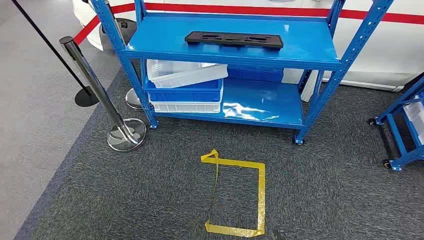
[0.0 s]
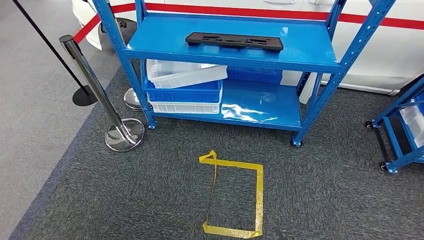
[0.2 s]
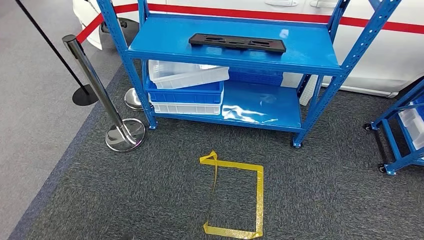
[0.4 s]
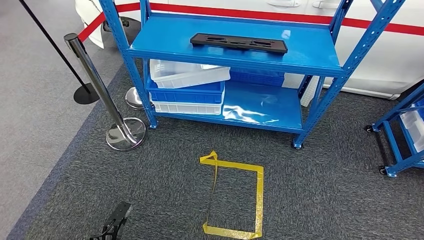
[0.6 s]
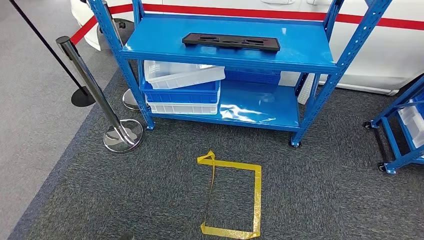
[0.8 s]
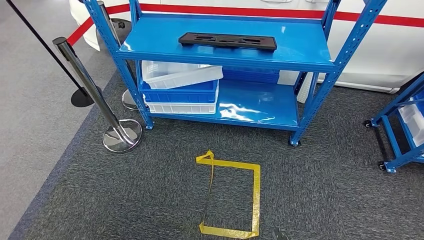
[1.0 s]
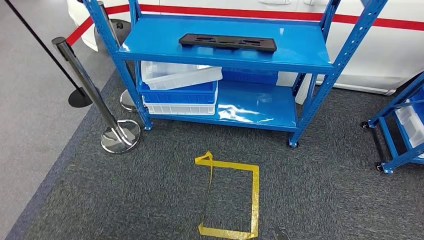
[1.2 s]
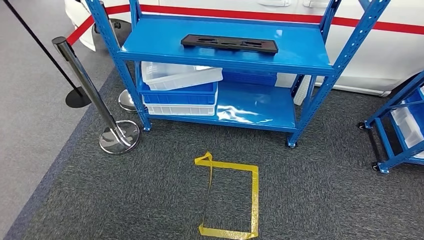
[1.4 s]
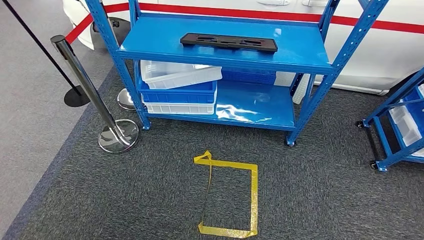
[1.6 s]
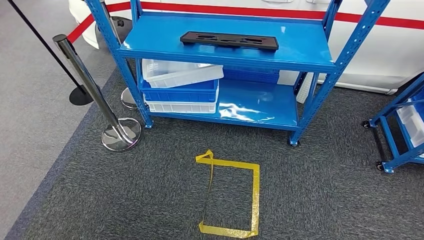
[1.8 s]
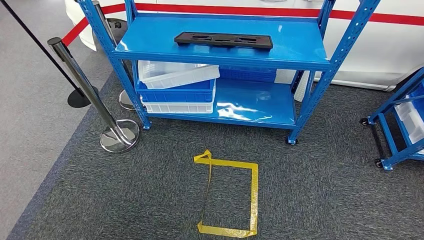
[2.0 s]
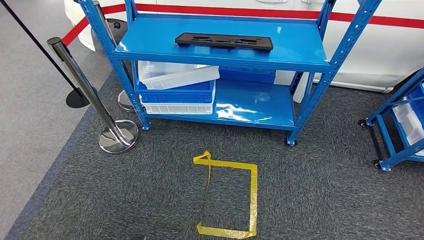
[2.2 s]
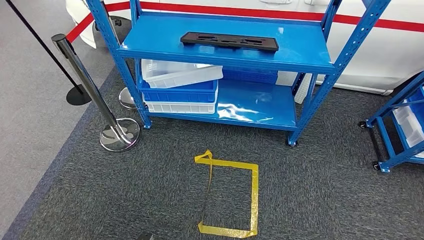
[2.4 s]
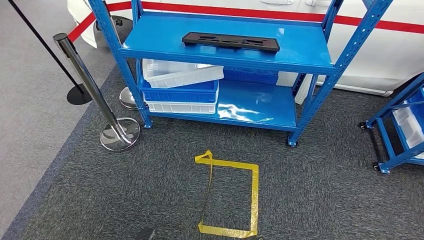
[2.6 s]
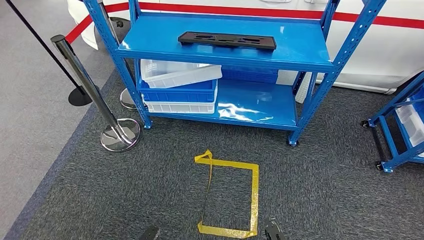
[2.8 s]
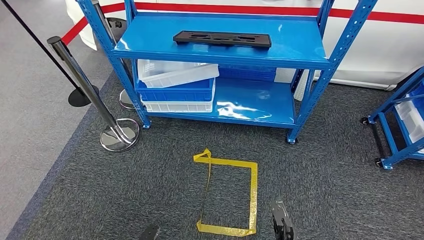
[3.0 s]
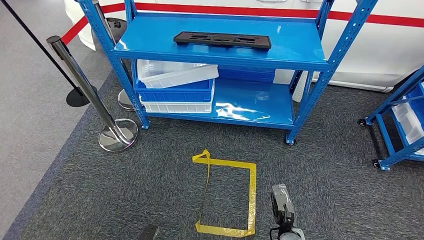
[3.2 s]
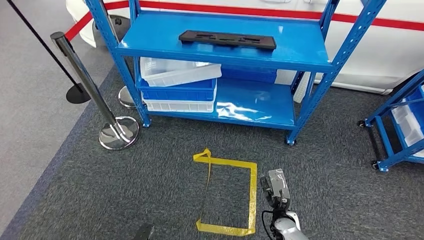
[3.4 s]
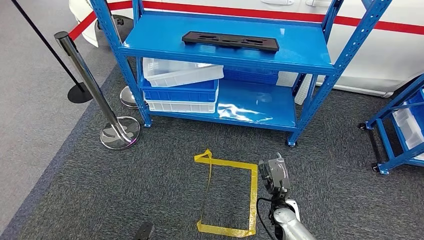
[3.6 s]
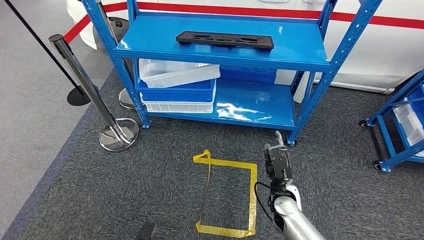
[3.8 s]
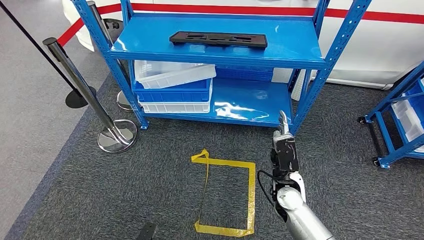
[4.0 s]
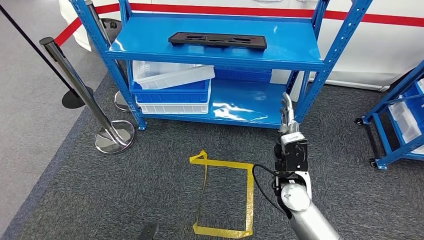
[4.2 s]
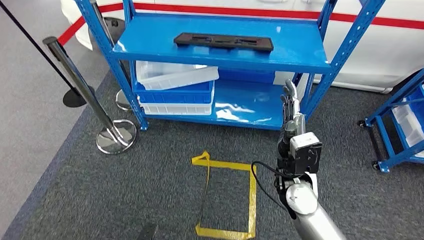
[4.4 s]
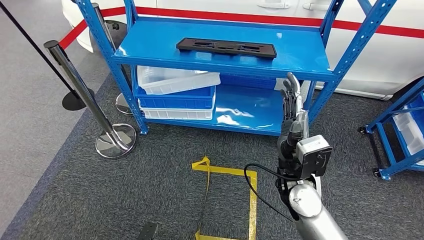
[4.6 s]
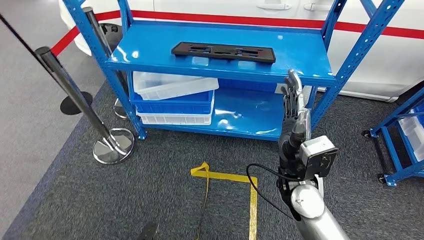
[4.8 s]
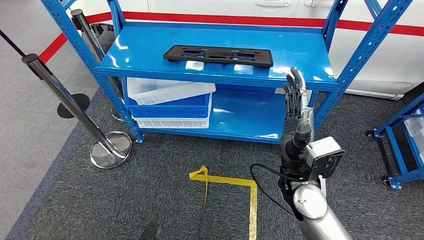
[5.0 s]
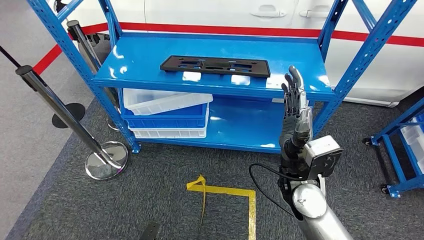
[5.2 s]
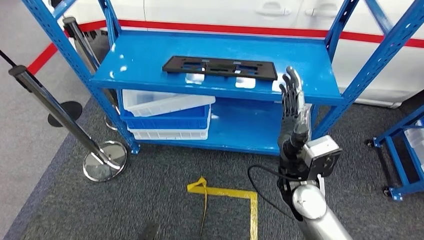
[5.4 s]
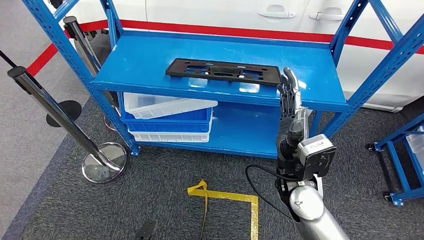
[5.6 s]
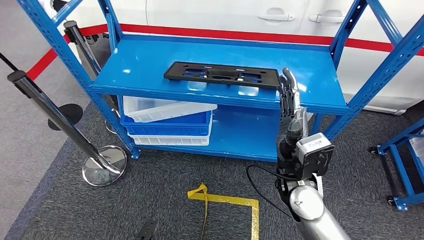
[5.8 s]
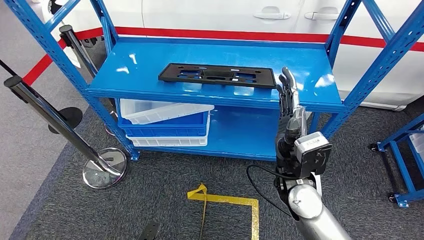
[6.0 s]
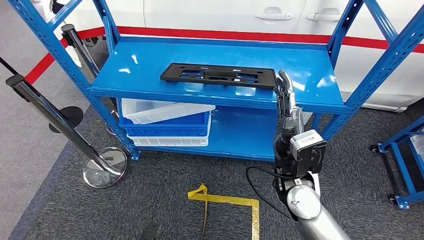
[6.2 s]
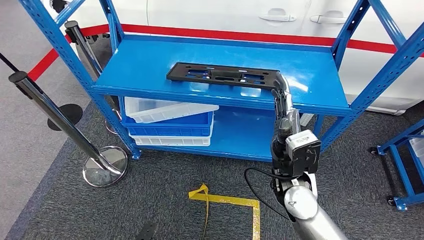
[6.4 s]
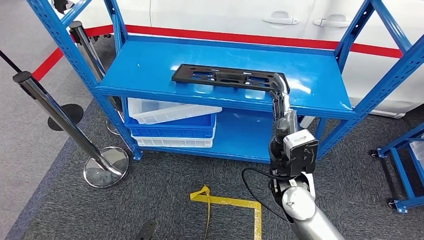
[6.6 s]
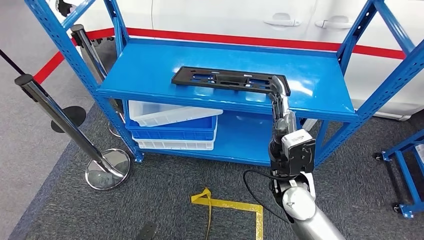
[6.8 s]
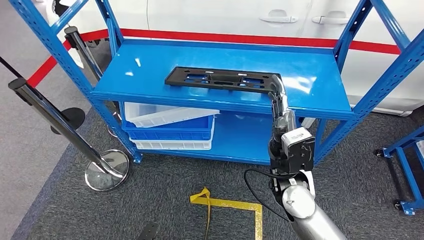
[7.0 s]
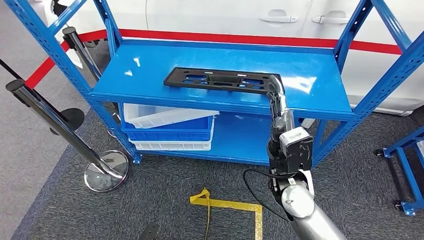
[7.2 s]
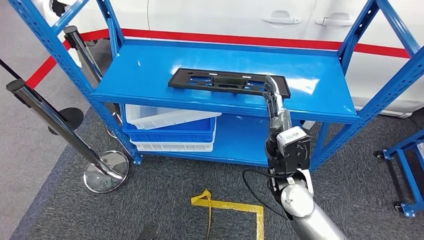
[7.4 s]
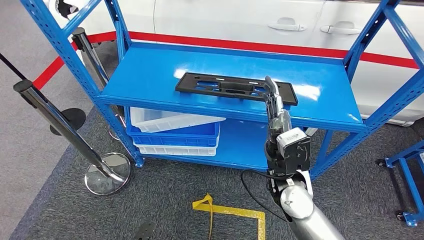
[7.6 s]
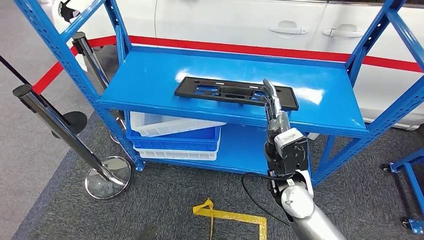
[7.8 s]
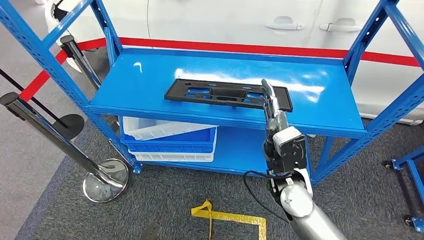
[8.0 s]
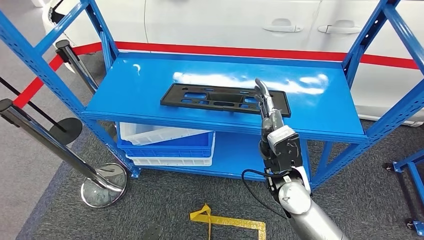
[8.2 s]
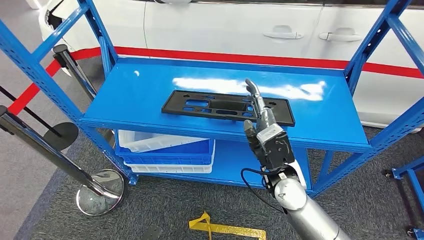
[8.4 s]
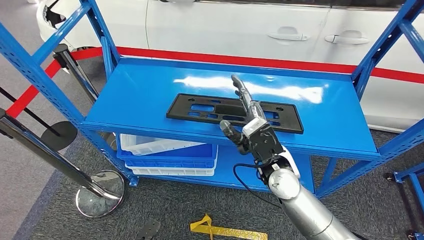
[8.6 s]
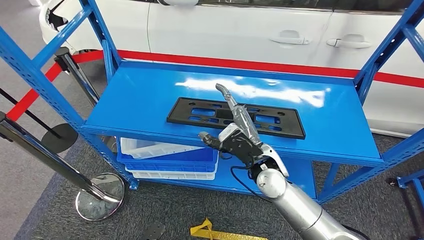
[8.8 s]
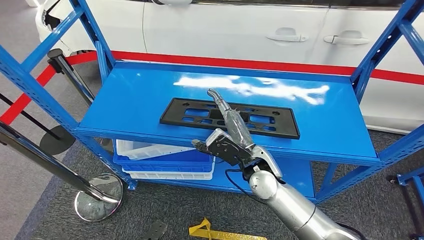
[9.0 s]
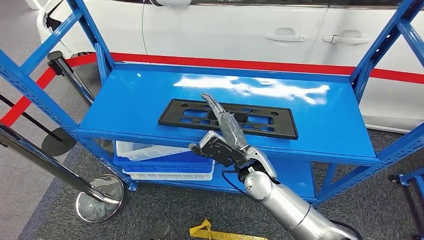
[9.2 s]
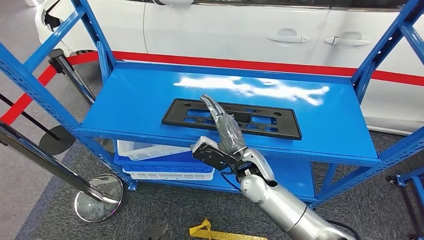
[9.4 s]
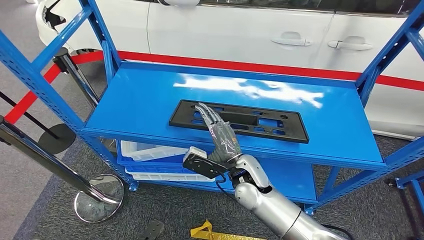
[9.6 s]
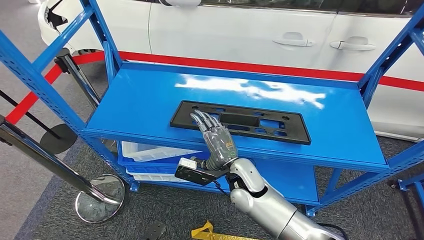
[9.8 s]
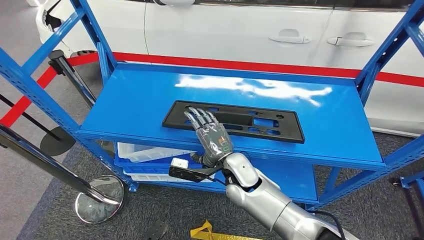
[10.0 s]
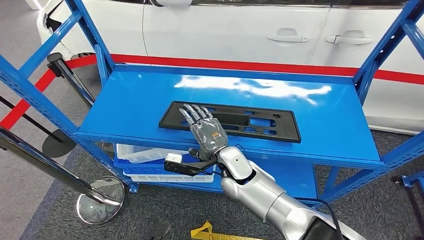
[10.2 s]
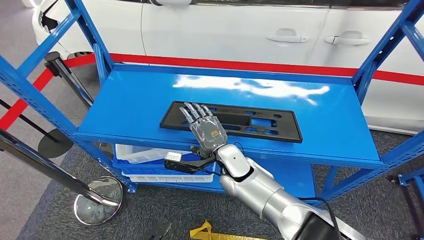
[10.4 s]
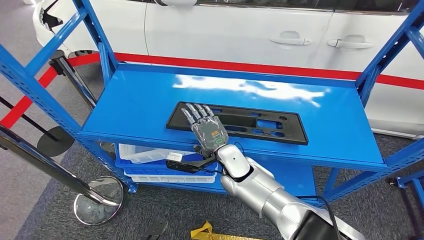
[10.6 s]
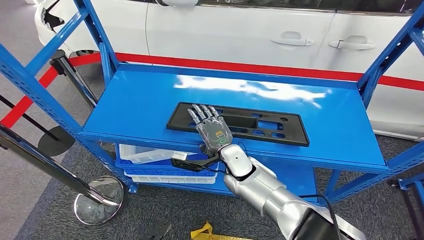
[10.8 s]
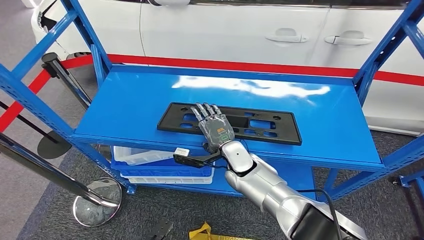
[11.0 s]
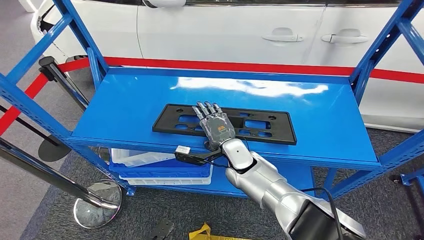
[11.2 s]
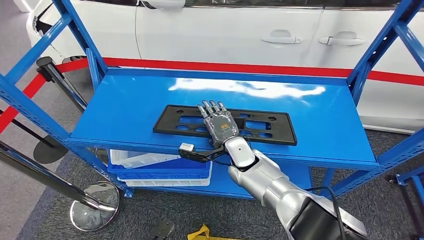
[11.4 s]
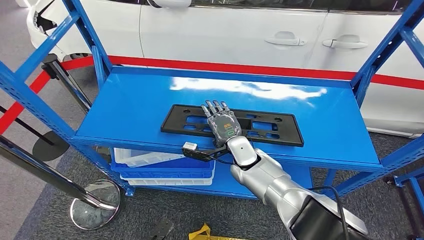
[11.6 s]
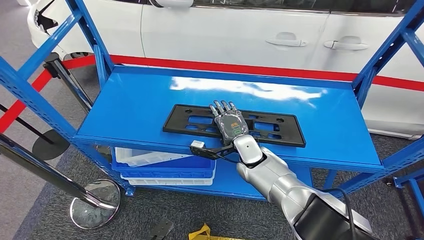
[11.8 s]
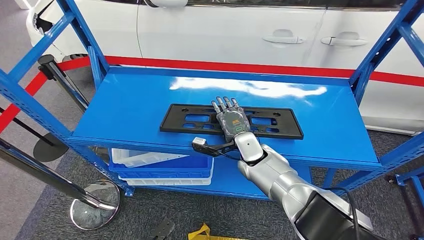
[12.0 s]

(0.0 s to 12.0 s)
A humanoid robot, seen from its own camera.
1.6 s - 3.0 s: The left hand goes some 5 cm forward; the right hand shifts roughly 15 cm forward.

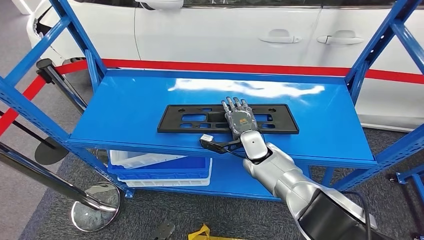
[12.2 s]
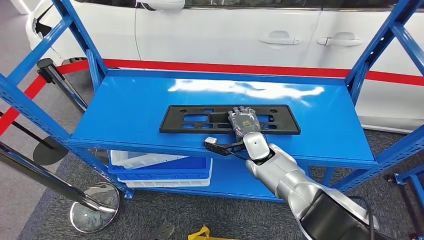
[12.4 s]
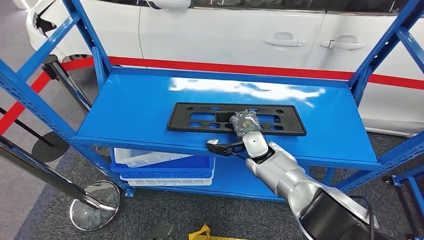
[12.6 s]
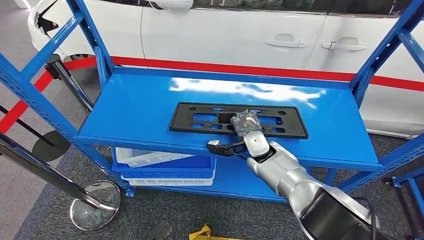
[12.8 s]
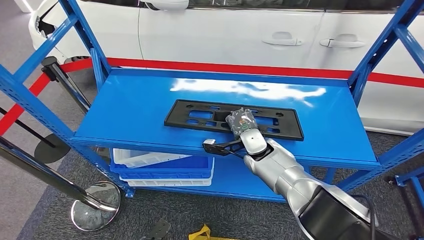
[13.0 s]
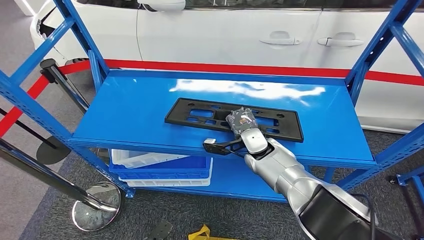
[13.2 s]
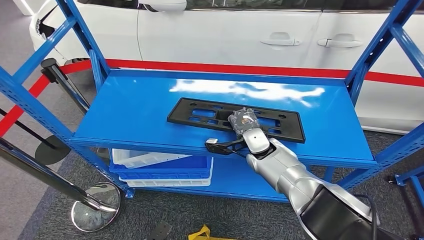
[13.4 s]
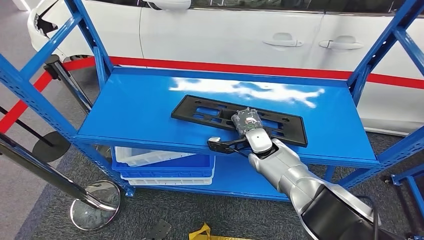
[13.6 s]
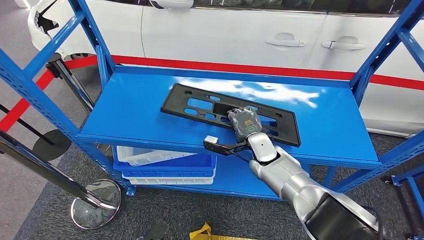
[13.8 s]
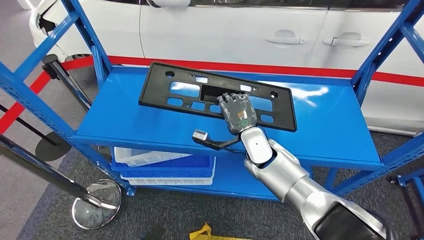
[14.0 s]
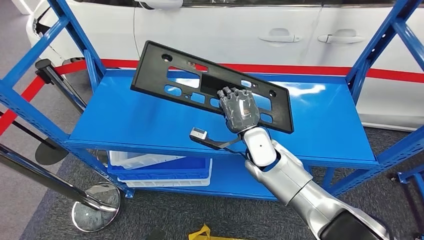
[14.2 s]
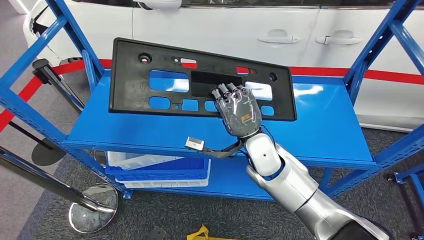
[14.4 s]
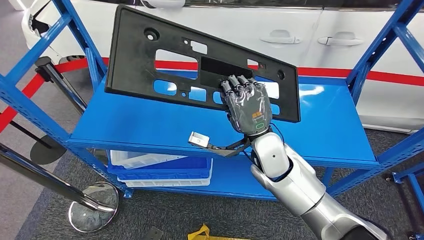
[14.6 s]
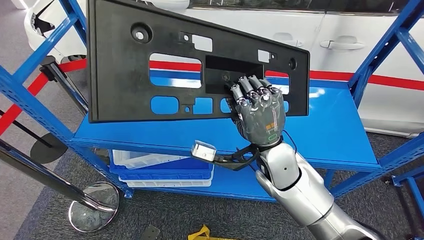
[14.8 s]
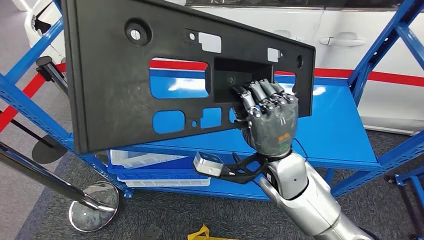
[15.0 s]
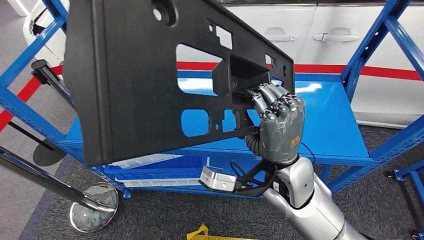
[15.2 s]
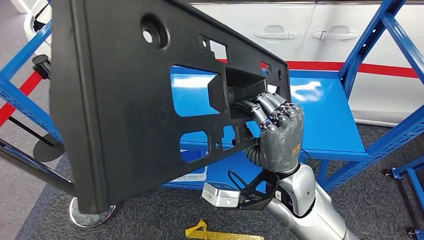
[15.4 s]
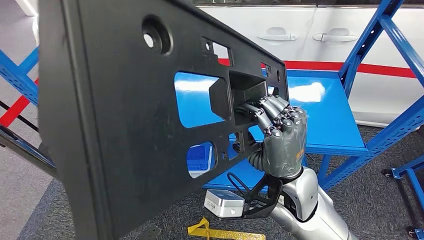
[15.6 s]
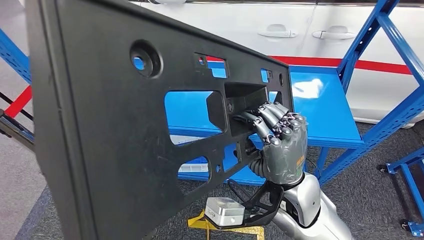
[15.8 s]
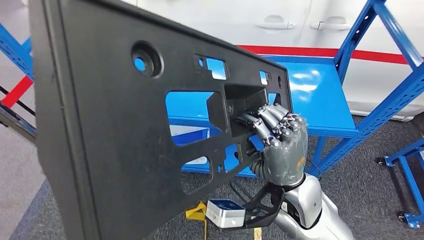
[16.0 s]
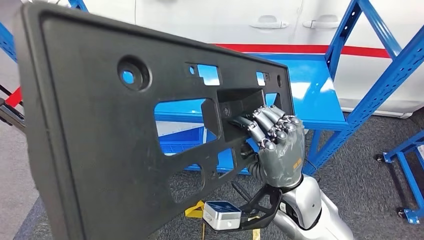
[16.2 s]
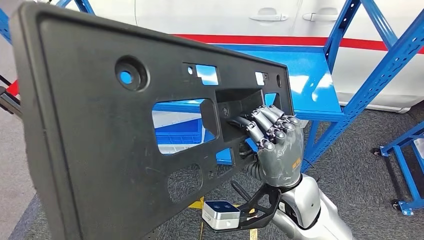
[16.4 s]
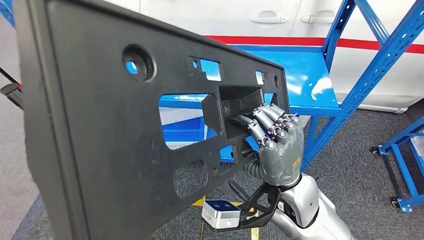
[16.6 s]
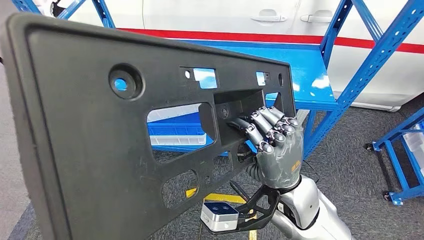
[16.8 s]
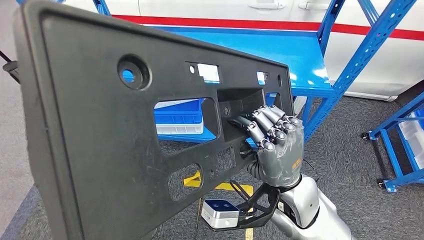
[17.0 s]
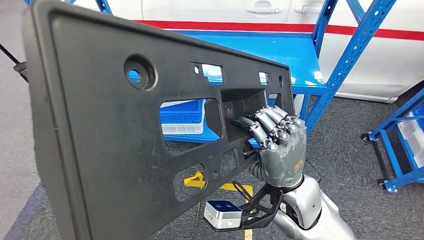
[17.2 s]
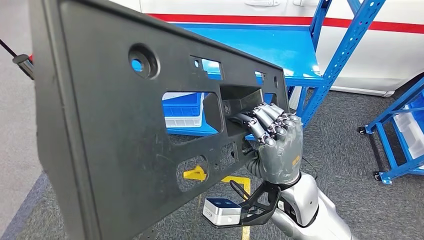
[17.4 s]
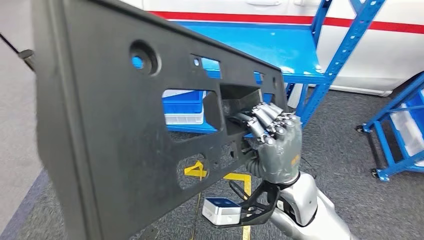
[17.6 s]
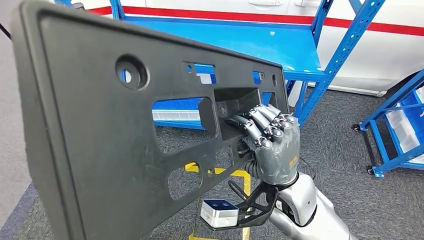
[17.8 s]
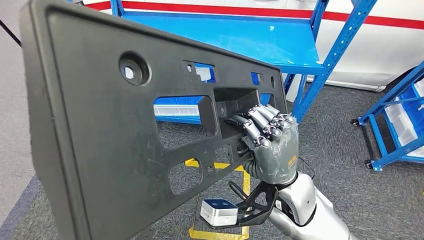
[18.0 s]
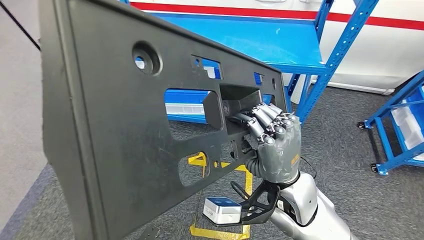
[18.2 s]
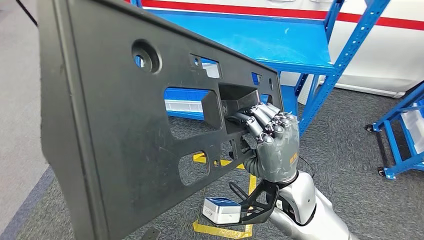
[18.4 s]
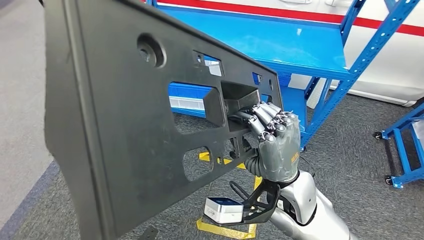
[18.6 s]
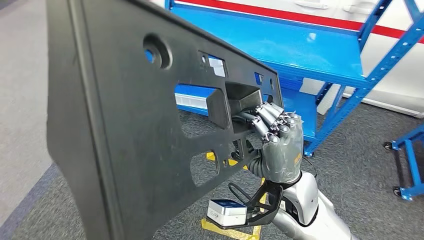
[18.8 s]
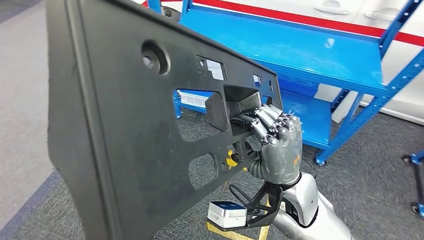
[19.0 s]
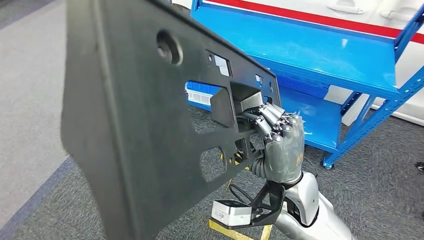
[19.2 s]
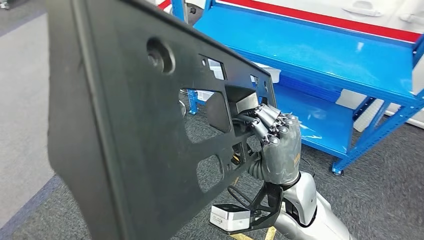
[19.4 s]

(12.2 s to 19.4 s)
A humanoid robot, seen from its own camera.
Step, 12.2 s - 14.4 s: Pick up the large material from the shelf.
